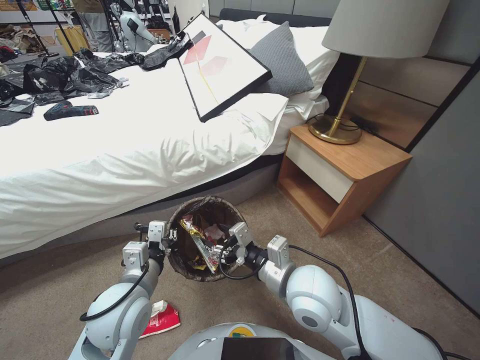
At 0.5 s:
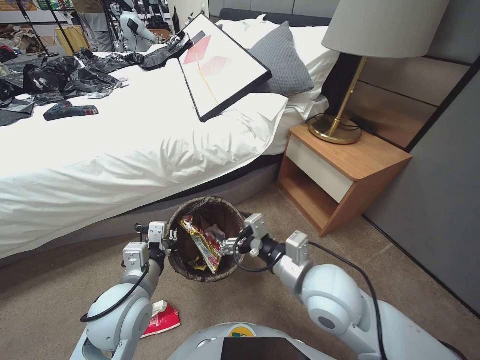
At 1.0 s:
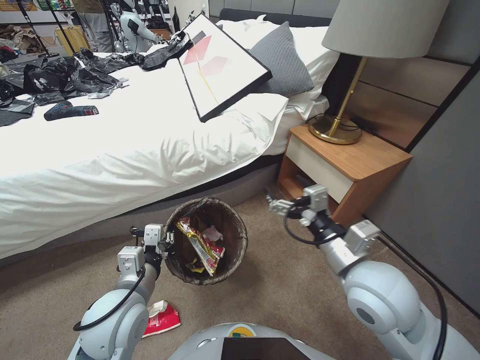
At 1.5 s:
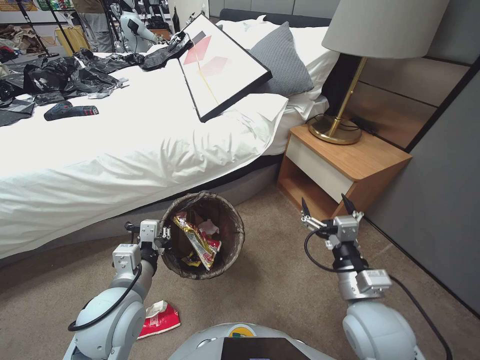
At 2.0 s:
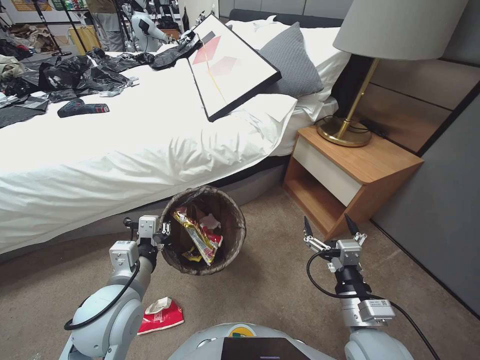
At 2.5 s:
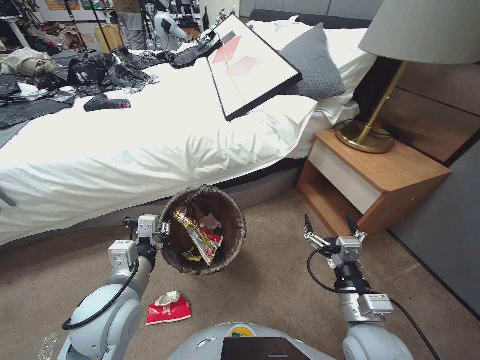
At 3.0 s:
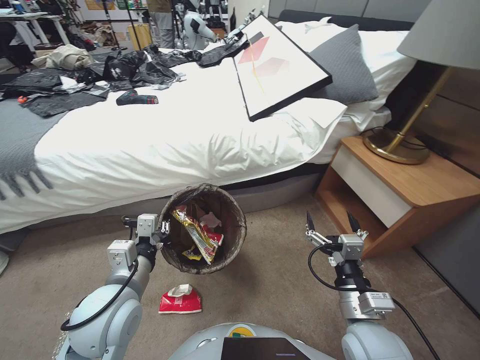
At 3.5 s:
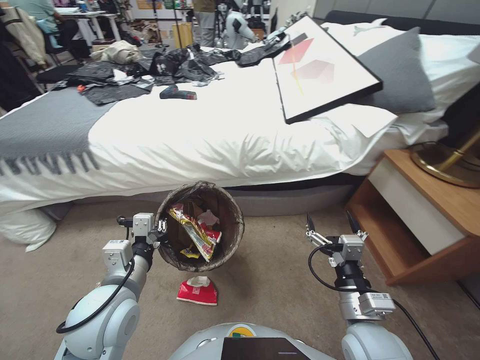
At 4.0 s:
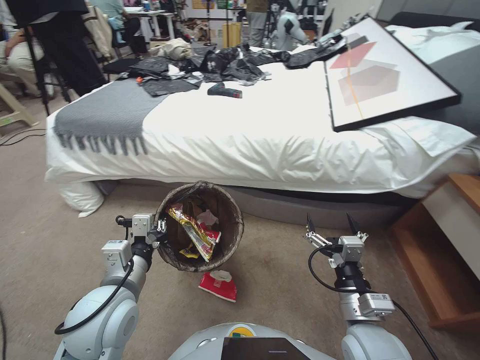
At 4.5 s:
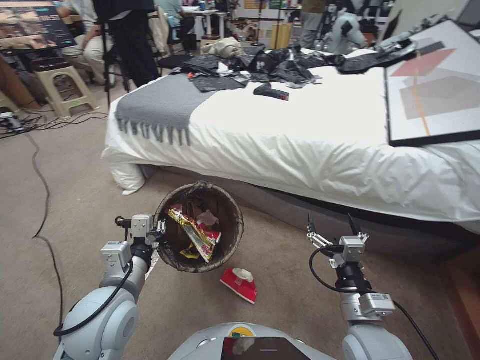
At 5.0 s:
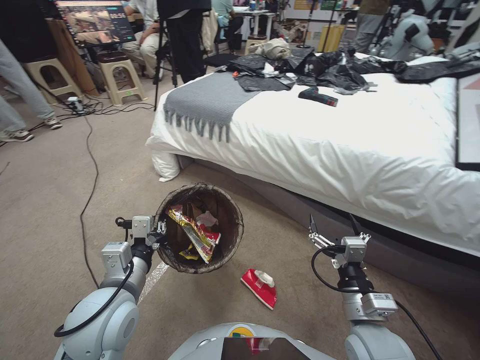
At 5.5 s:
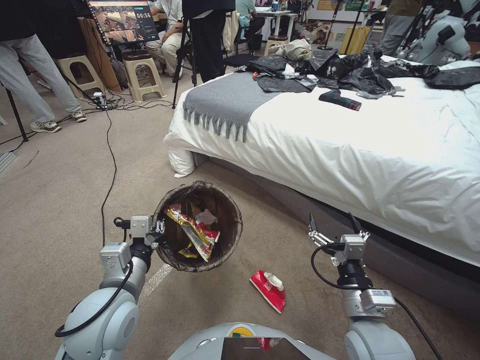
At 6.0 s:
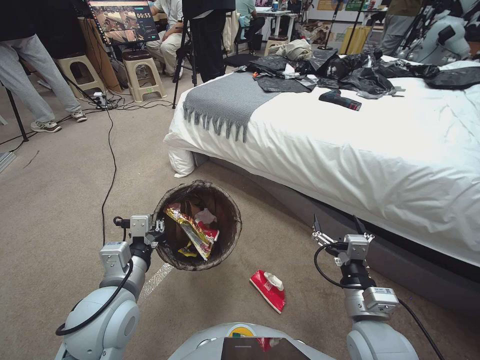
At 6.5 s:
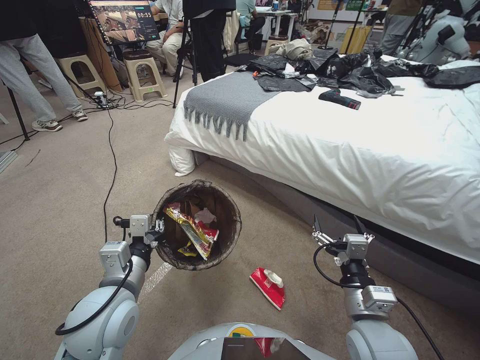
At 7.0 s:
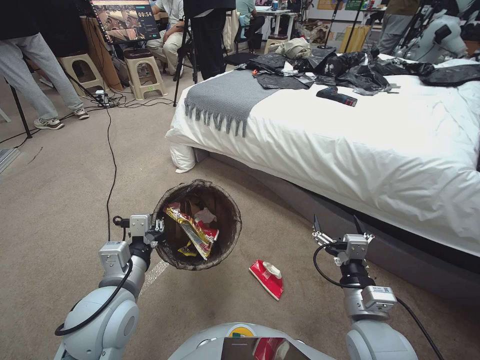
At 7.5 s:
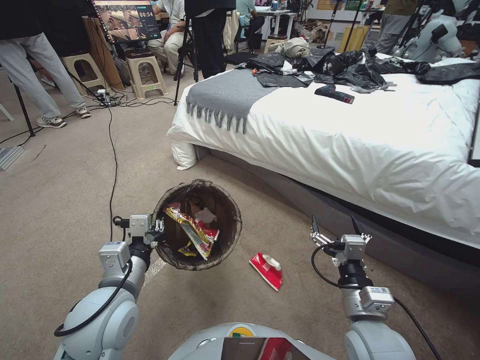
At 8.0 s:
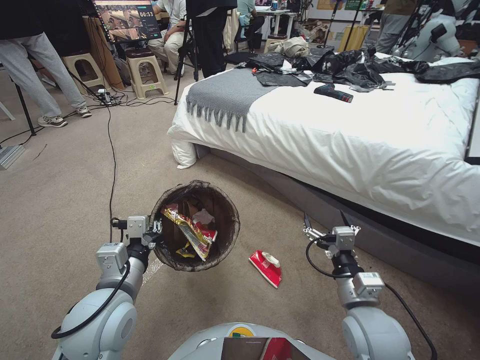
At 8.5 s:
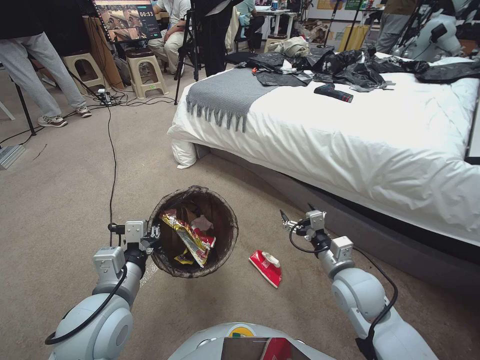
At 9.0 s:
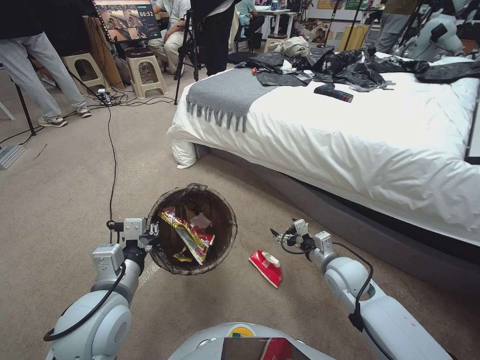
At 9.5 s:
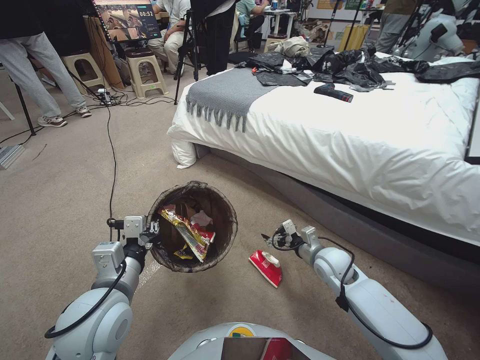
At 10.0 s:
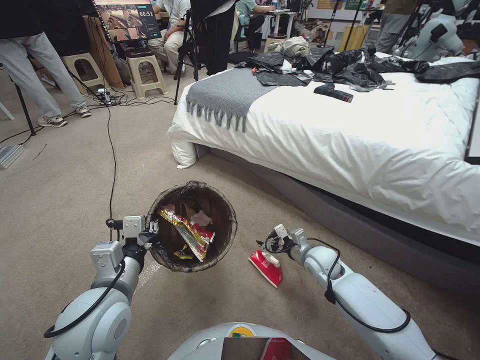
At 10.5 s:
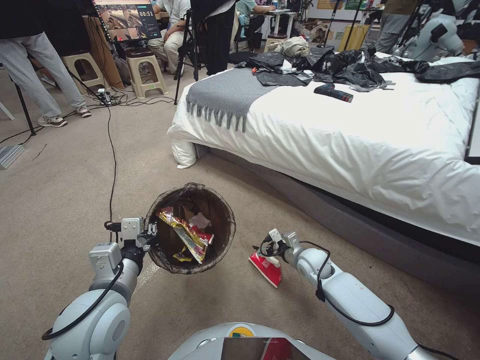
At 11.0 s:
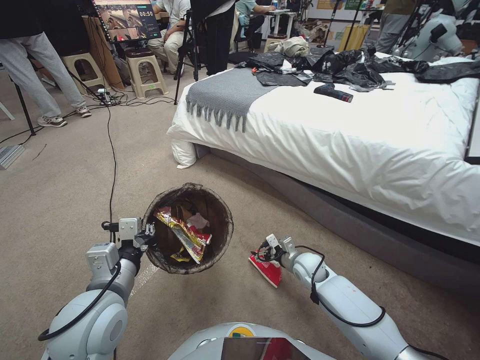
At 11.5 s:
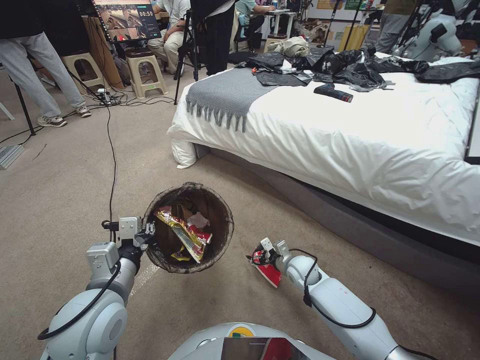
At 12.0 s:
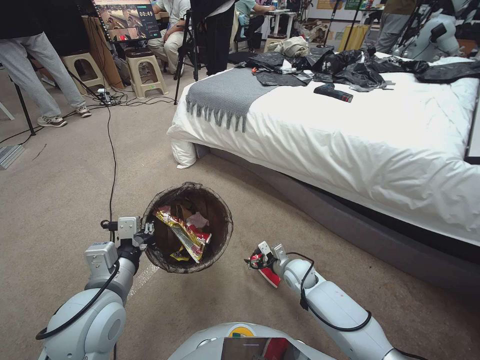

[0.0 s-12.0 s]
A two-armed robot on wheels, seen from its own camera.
Task of the whole recording: Pick up the trash bin, then pick up the garbage from the floor and place it into the trash bin.
0.0 to 2.0 s: The right gripper is displaced to the right, backward and downward by about 15 cm, and opens.
8.0 to 10.0 s: The right gripper moves forward and downward, some 20 cm.
10.0 to 12.0 s: The right gripper goes roughly 10 cm downward and to the left.

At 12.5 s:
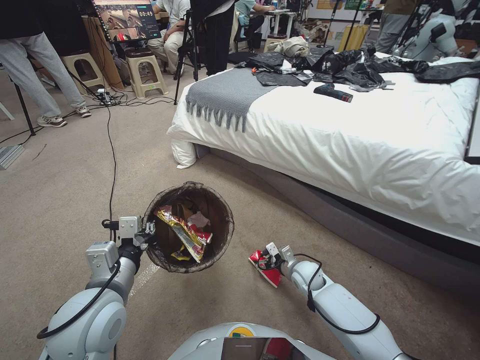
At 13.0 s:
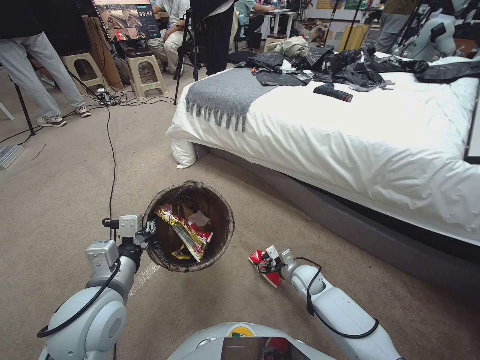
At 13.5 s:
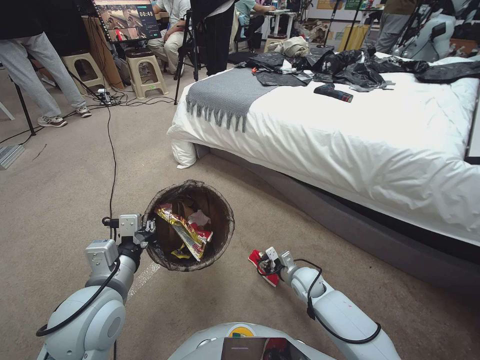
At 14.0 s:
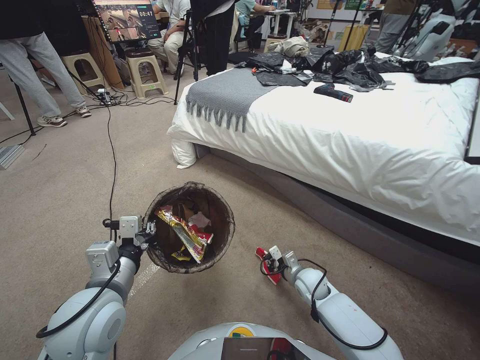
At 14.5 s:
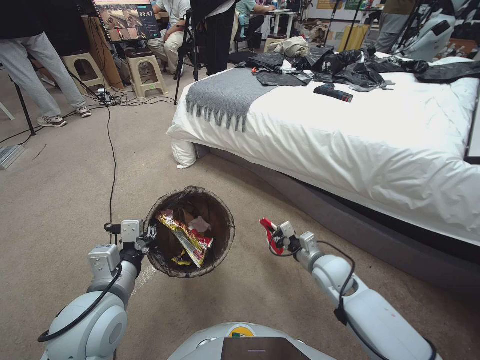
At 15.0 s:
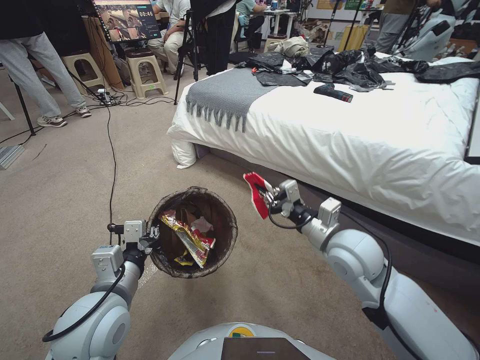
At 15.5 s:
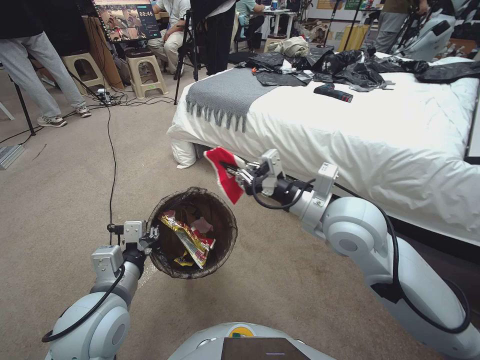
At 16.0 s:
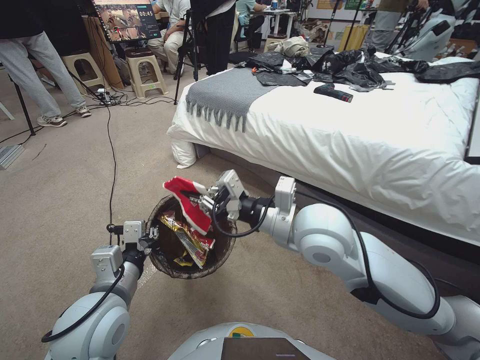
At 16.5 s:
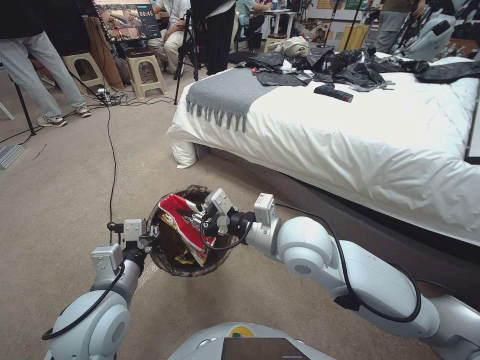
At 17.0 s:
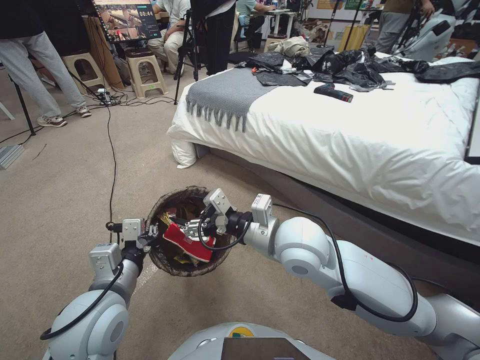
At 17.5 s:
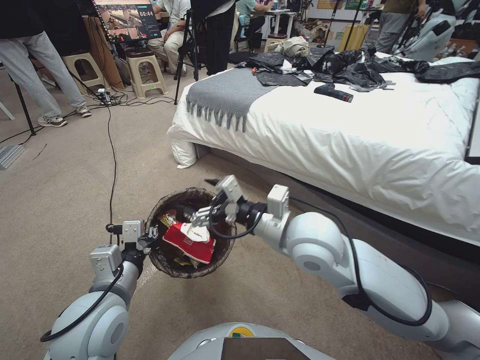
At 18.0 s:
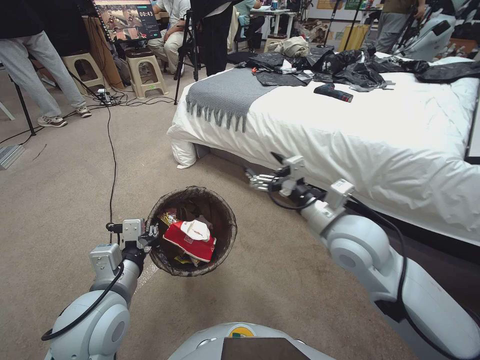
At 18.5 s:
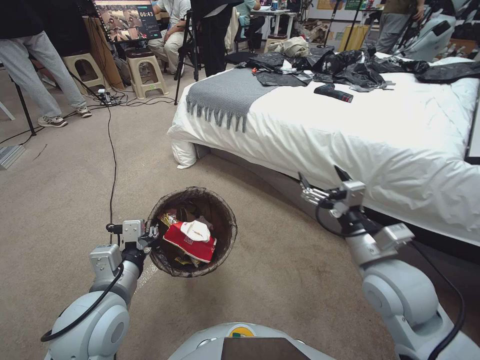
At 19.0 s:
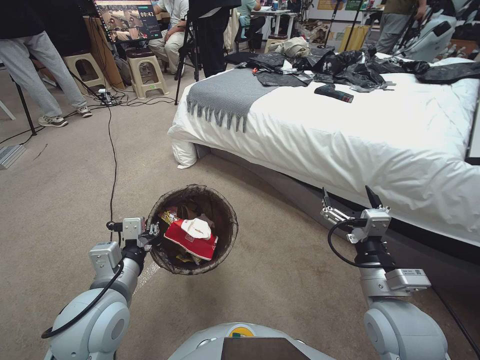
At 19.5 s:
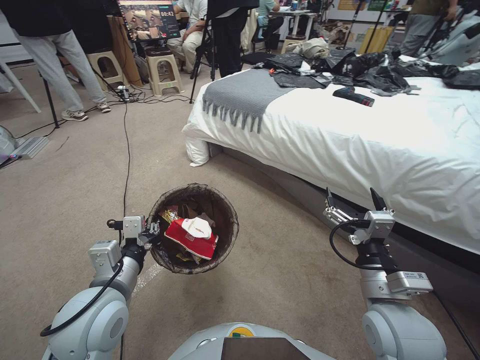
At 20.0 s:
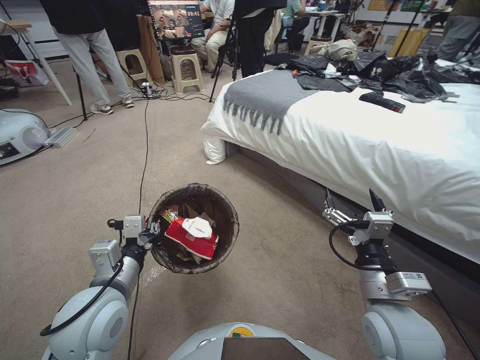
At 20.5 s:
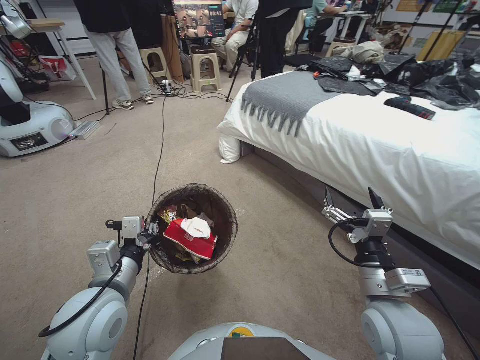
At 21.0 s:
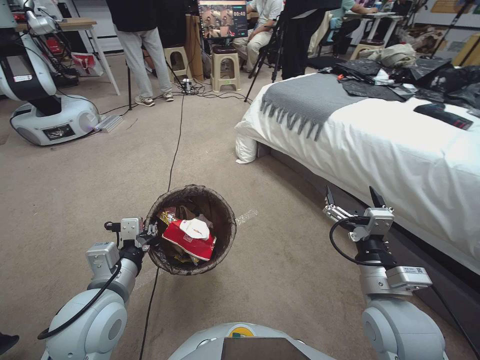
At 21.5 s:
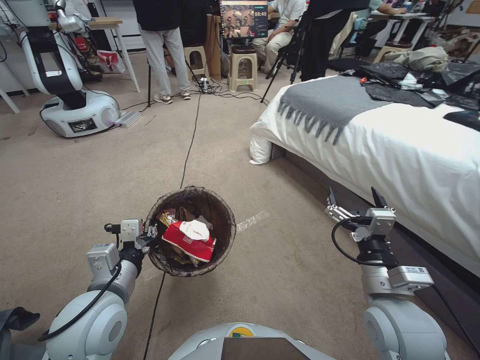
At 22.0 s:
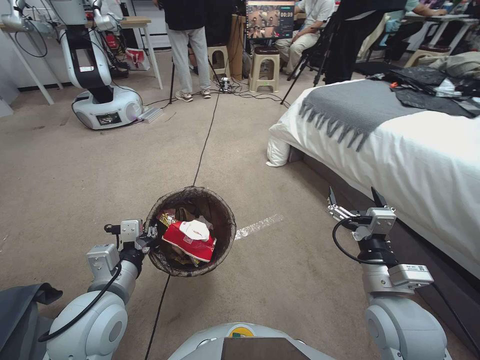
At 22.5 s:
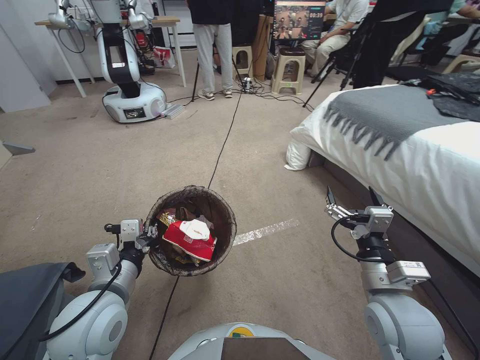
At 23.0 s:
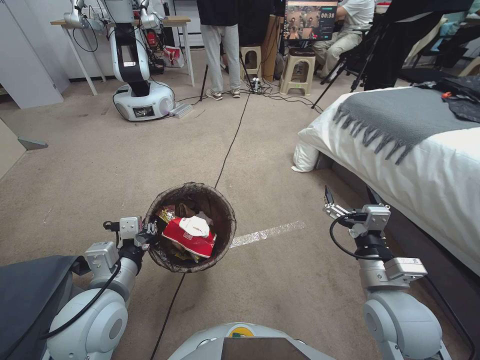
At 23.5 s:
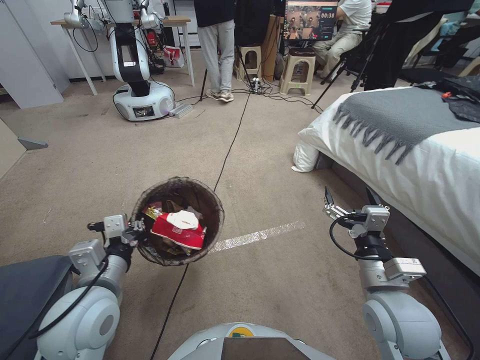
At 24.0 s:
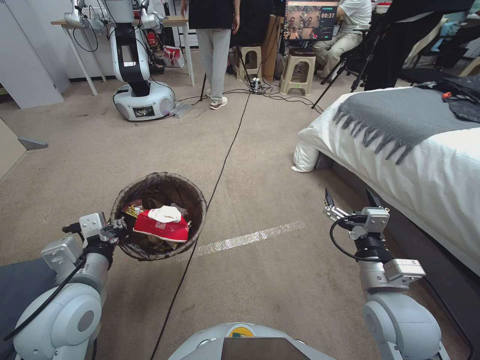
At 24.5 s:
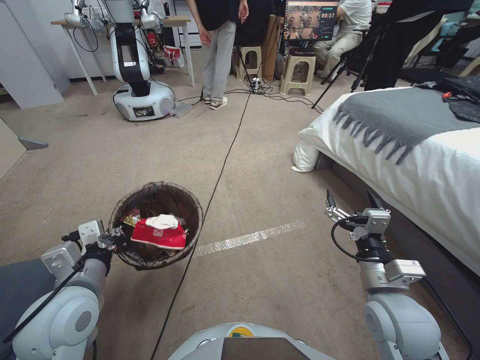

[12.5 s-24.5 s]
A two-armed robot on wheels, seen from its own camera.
Task of the whole recording: Pick up the trash bin, then pick up the garbage from the floor and place it into the trash bin.
12.5 to 14.5 s: The right gripper is displaced upward by some 10 cm, and closes its fingers.
14.5 to 16.5 s: The right gripper moves upward and to the left, roughly 30 cm.
16.5 to 18.5 s: The right gripper travels to the right by roughly 15 cm, and opens up.
18.5 to 20.5 s: The right gripper is displaced backward and downward by about 10 cm.

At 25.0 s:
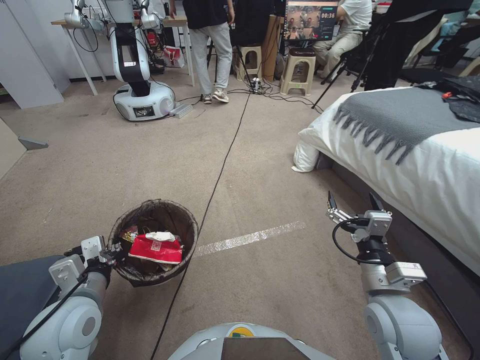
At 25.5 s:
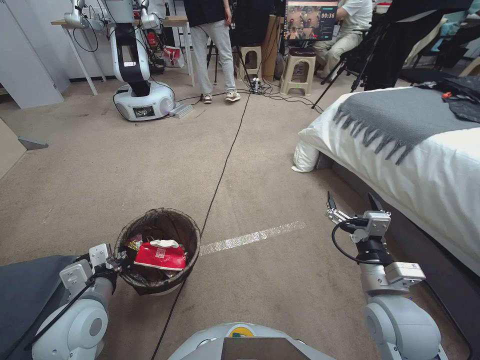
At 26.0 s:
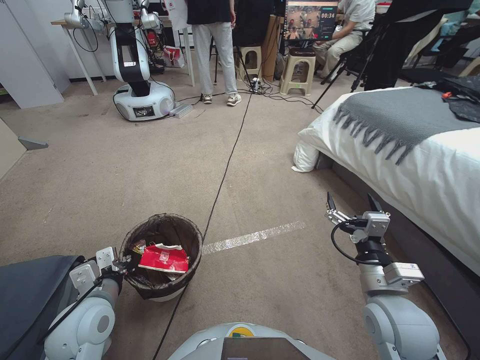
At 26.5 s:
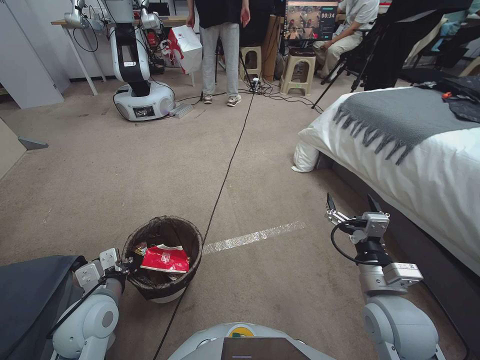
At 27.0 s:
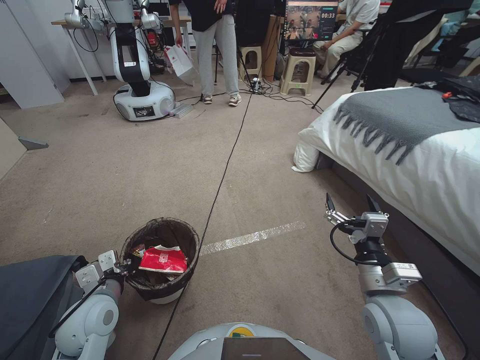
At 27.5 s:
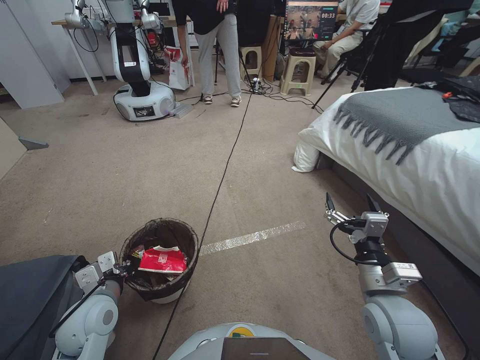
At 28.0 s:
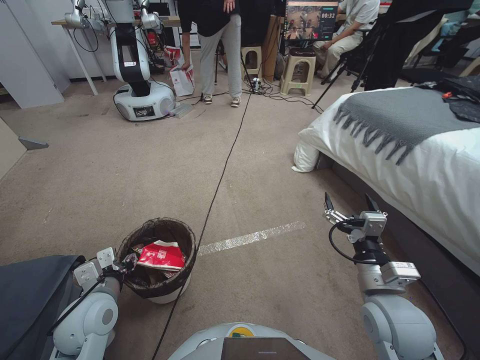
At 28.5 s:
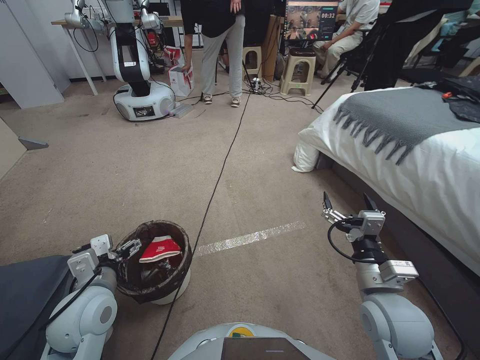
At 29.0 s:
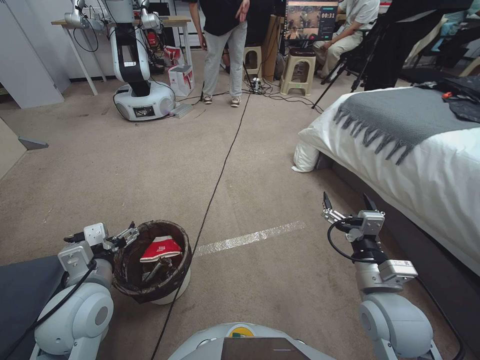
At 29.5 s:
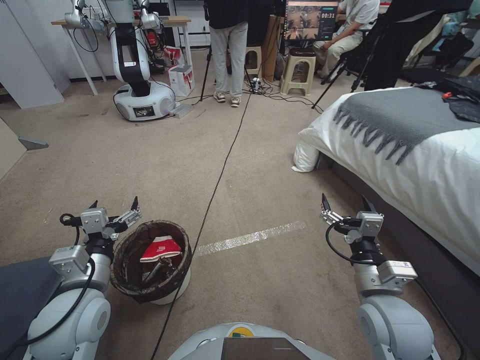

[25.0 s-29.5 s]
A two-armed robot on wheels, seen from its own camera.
Task of the whole recording: Pick up the trash bin, then pick up the garbage from the floor and place it into the trash bin.
25.0 to 27.0 s: The left gripper travels downward by about 5 cm.
27.0 to 29.5 s: The left gripper goes approximately 10 cm upward, and opens its fingers.
